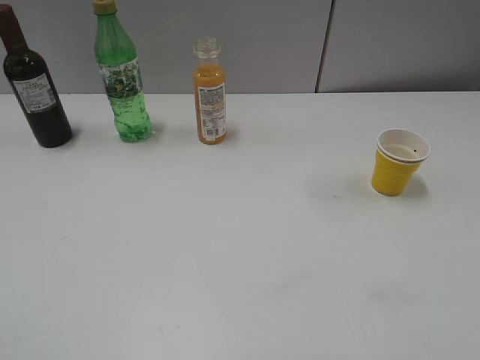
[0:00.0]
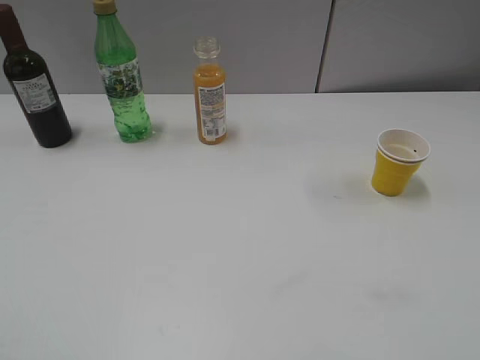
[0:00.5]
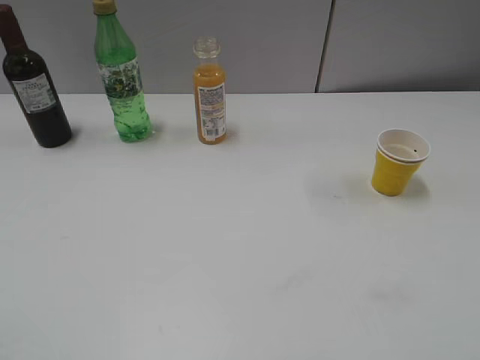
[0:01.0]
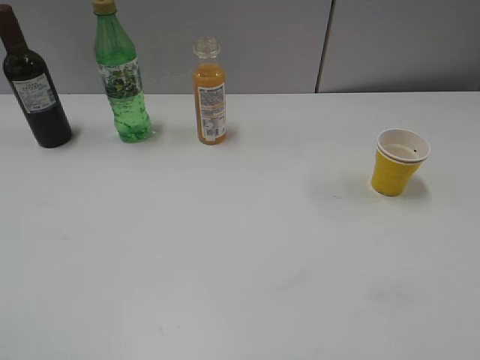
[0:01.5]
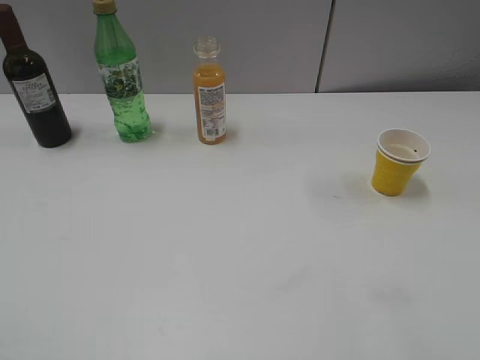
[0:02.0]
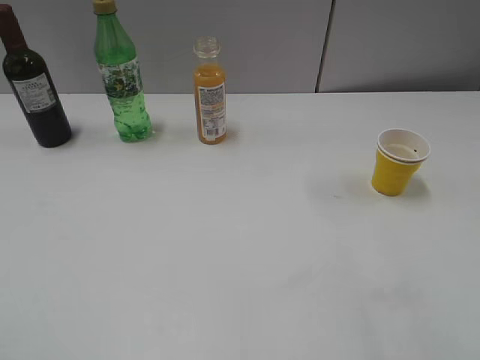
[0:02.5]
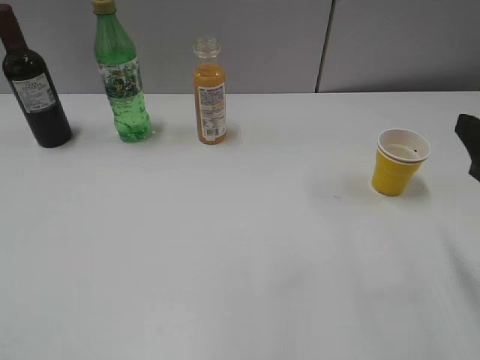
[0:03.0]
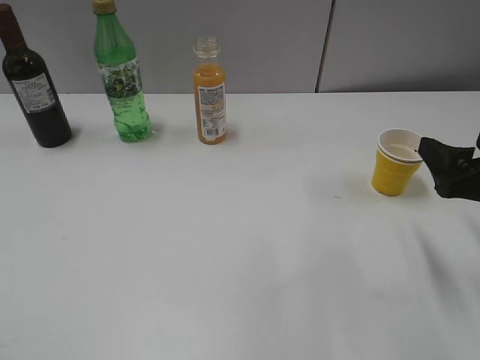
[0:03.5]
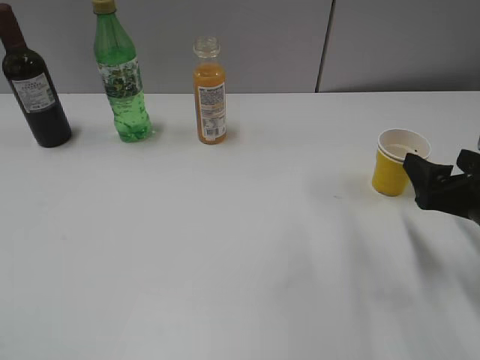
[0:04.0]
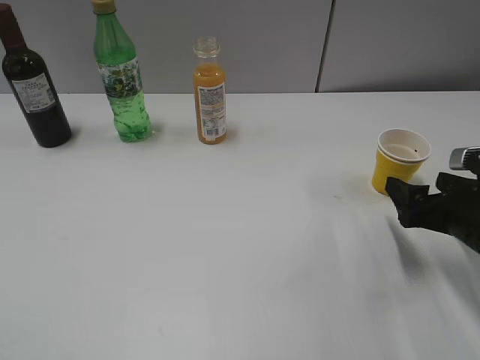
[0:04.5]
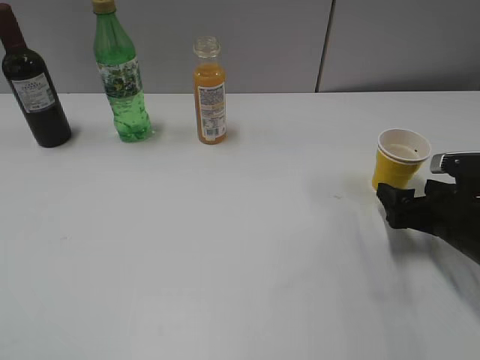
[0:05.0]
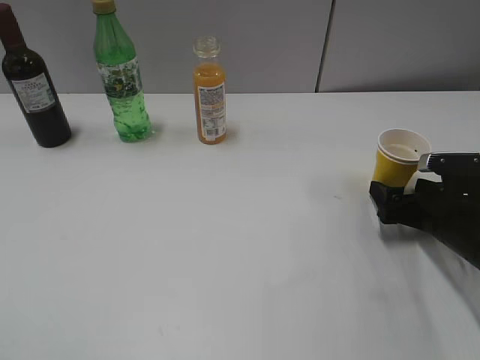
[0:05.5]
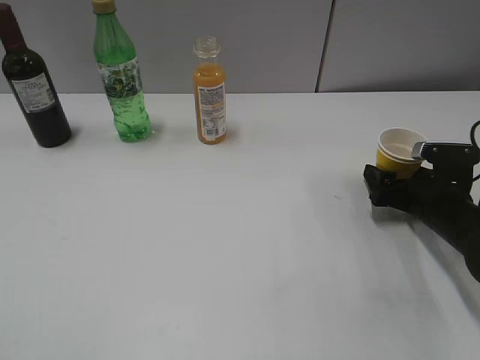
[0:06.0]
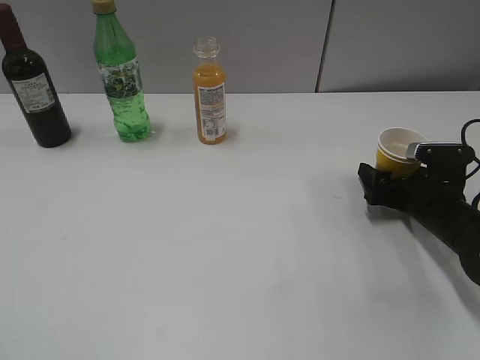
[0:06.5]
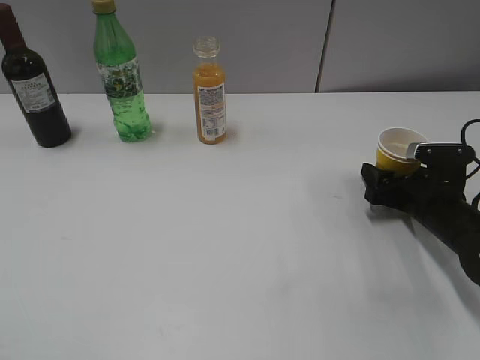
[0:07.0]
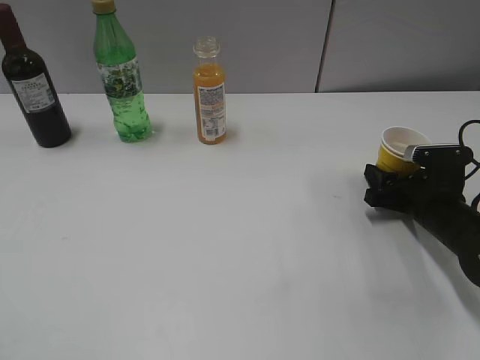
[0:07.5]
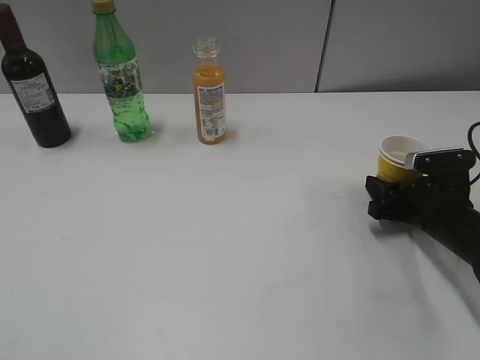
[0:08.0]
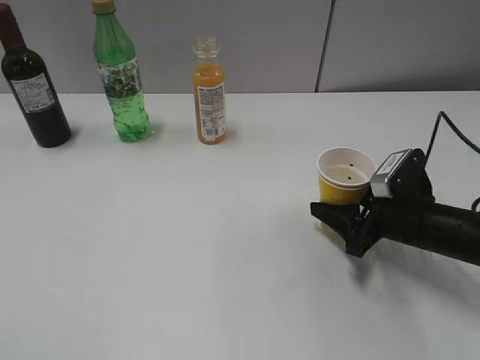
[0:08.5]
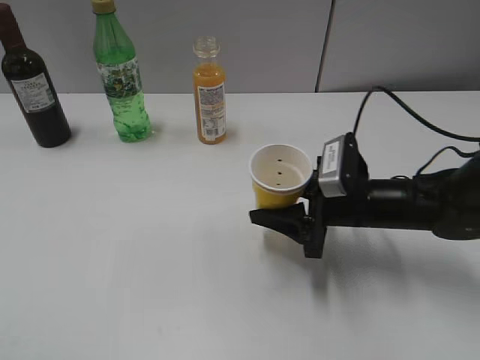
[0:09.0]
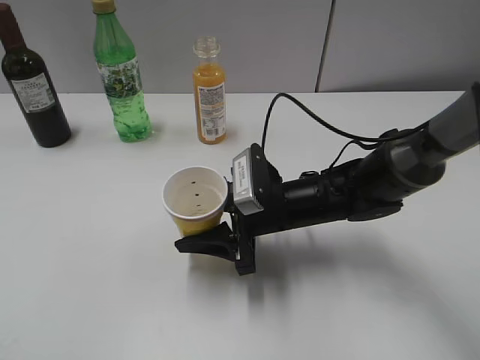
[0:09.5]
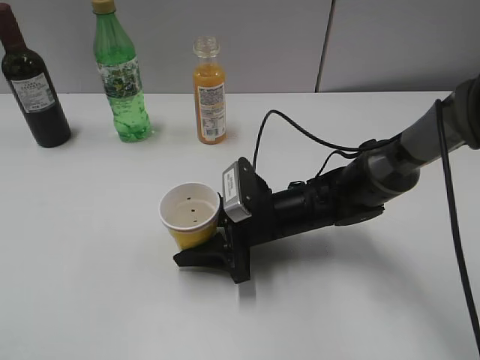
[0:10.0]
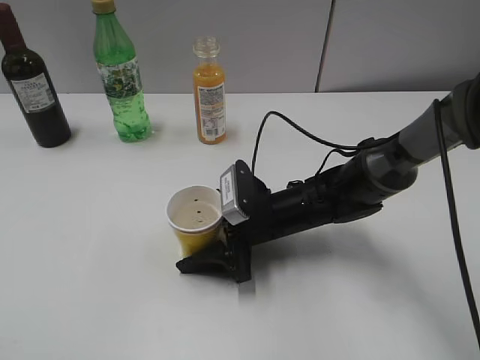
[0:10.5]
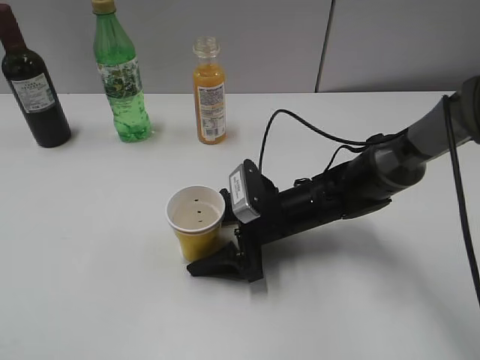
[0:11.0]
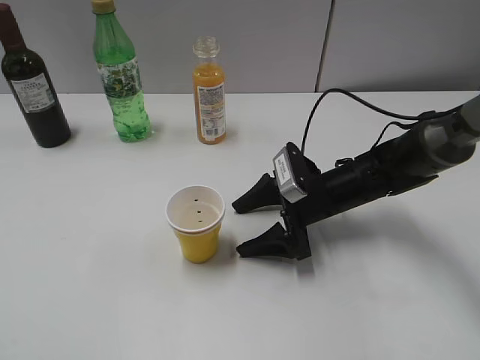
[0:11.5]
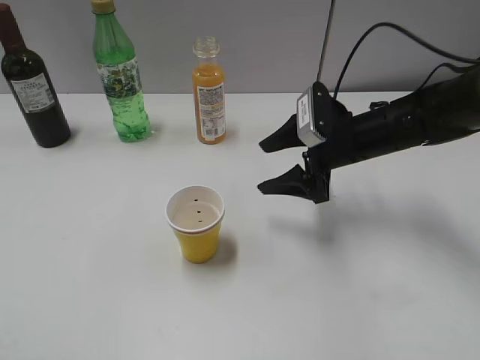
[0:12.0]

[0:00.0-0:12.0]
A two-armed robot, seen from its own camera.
Step, 0:03.0 to 0:07.5: Grasp the yellow paper cup with right gripper.
Step, 0:08.0 to 0:11.0: Place the yellow paper cup on the table with right gripper.
0:02.0 to 0:04.0: The right gripper heads downward and forward, covering about 25 cm.
0:04.0 to 0:06.0: The right gripper heads downward and forward, covering roughly 10 cm.
0:06.0 to 0:08.0: The right gripper closes.
0:08.0 to 0:10.0: The right gripper heads to the left, covering roughly 20 cm.
0:10.0 to 0:12.0: The right gripper is displaced to the right, upward and forward by roughly 15 cm, and opens its fingers.

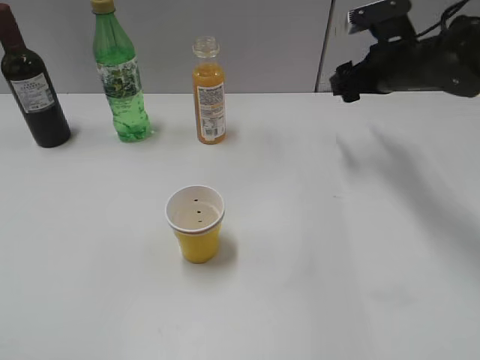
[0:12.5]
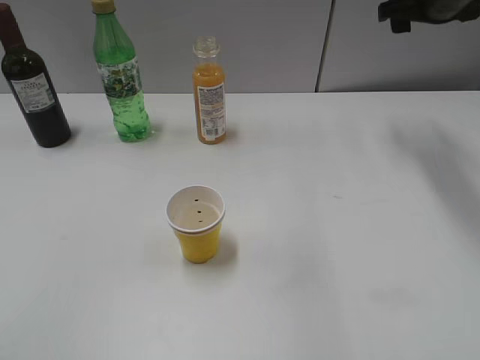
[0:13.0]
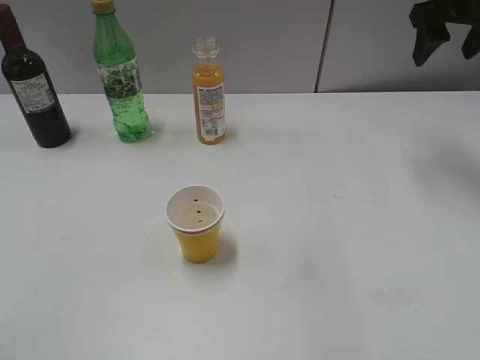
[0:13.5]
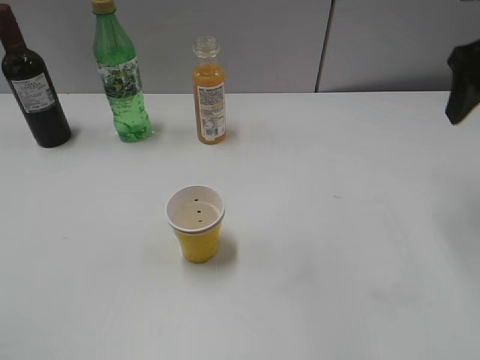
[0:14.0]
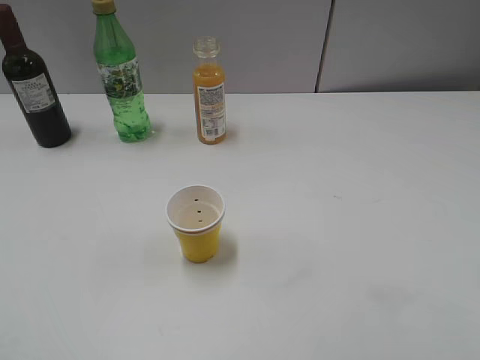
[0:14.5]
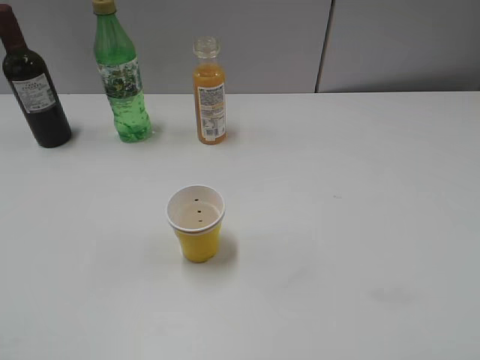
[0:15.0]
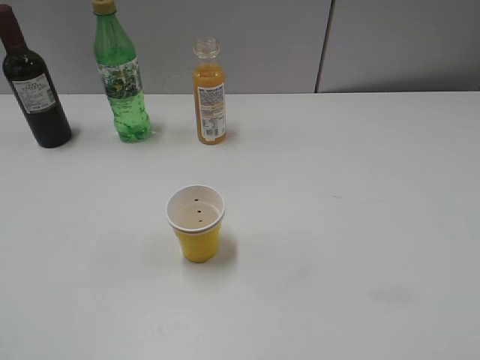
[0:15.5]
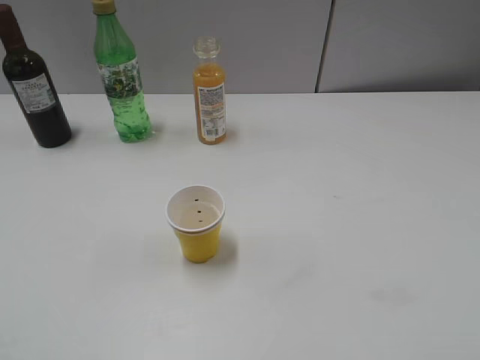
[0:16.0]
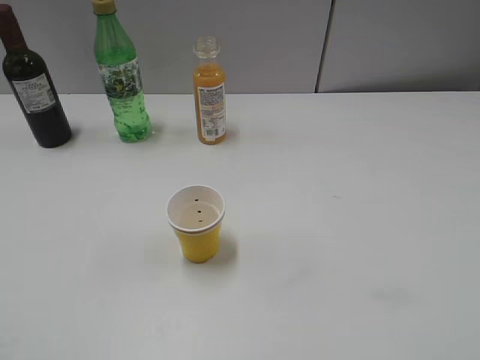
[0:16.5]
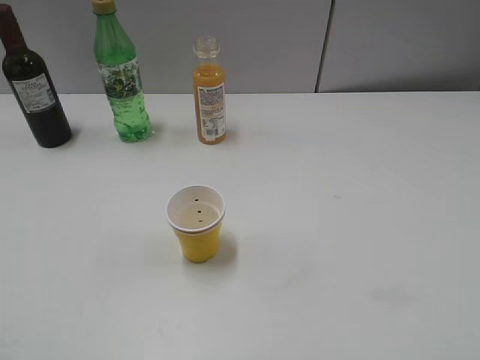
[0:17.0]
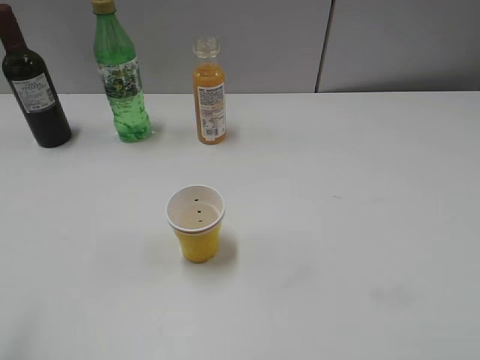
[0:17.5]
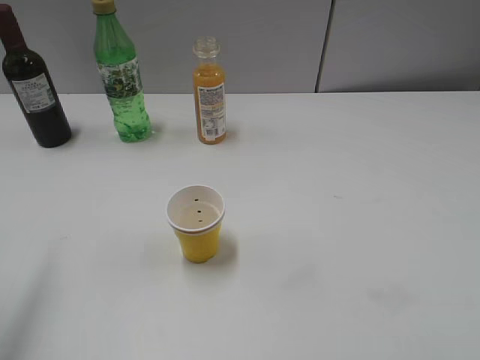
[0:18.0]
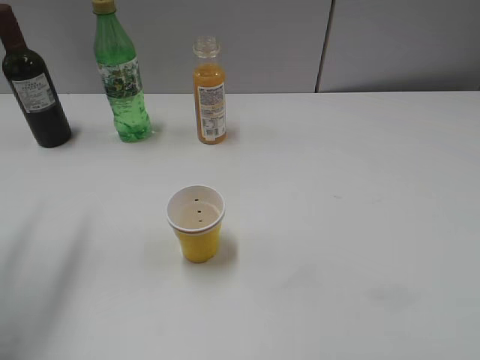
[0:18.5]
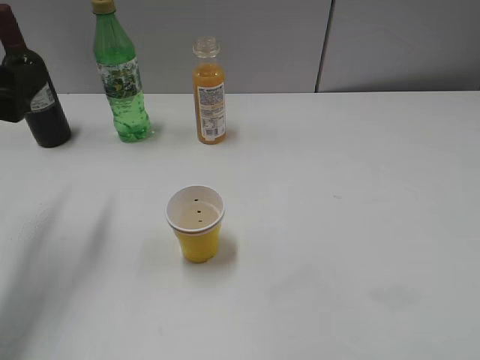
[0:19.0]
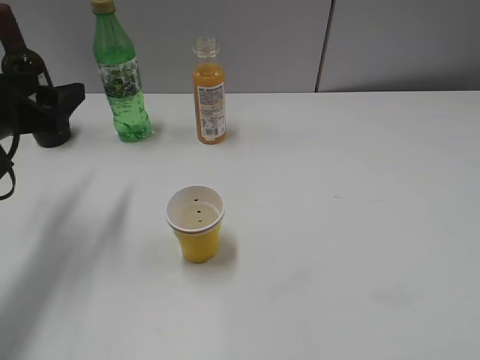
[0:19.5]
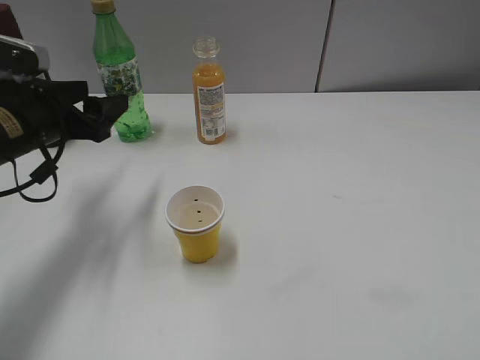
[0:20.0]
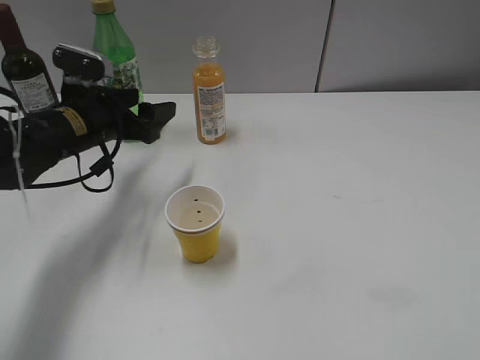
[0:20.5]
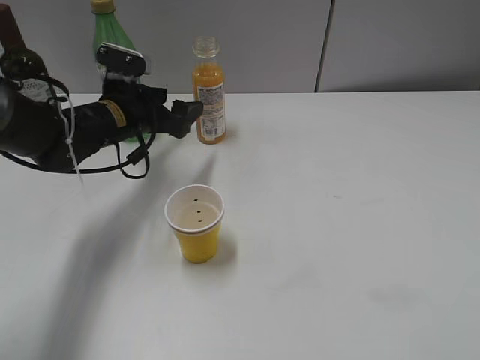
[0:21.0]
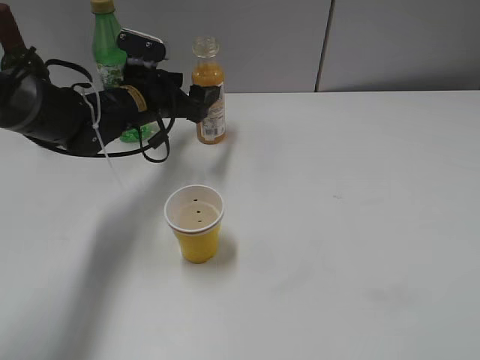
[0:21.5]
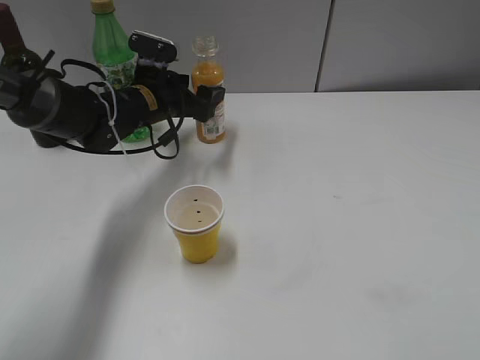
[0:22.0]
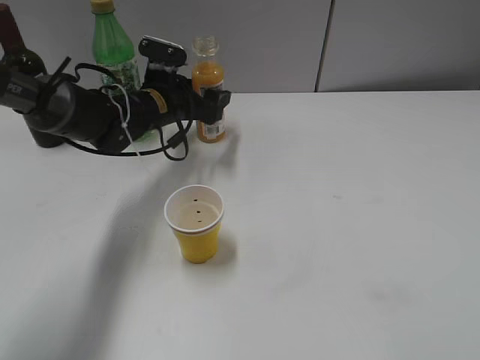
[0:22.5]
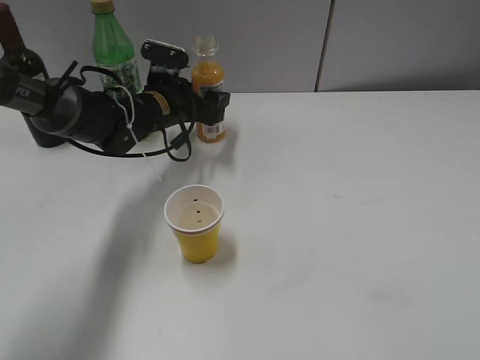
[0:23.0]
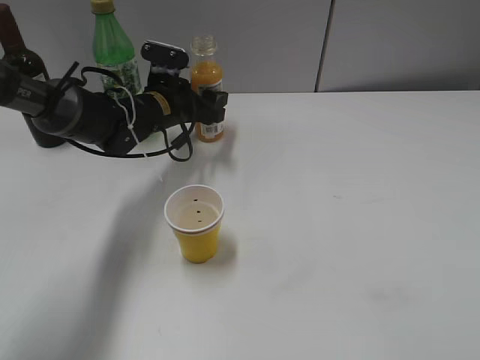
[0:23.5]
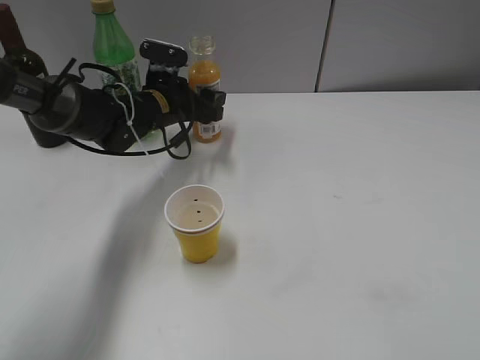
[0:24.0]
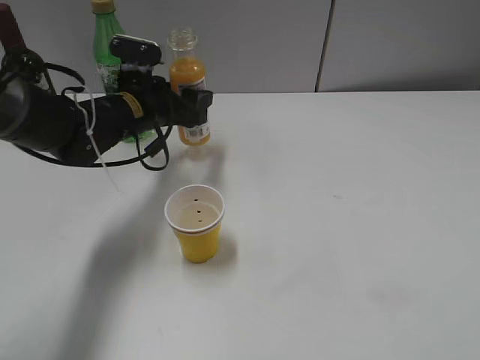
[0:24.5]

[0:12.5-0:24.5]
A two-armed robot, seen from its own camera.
Step, 0:12.5 to 0:23.5: Grasp the bottle with orange juice with left gripper.
0:12.5 to 0:14.5: The right gripper shifts roughly 25 cm backward.
0:16.5 to 0:18.5: The left gripper travels forward by about 25 cm.
0:18.5 to 0:20.5: The left gripper shifts approximately 25 cm forward, downward and to the right.
0:20.5 to 0:22.5: The left gripper is displaced to the right and forward by about 10 cm.
0:22.5 to 0:24.5: The left gripper goes about 5 cm backward, and closes up.

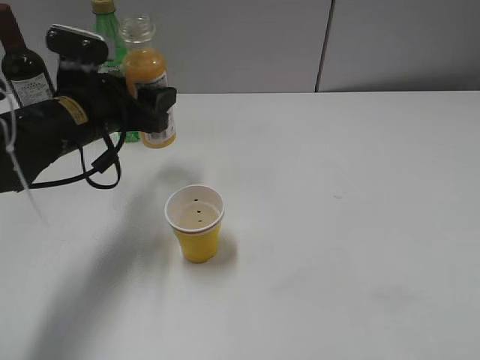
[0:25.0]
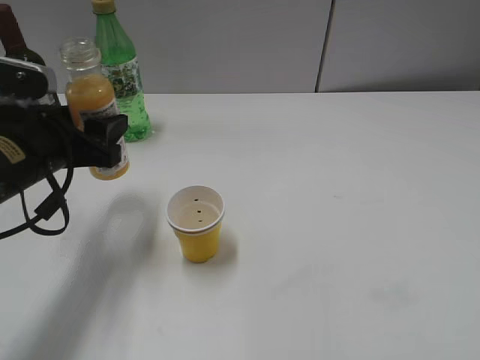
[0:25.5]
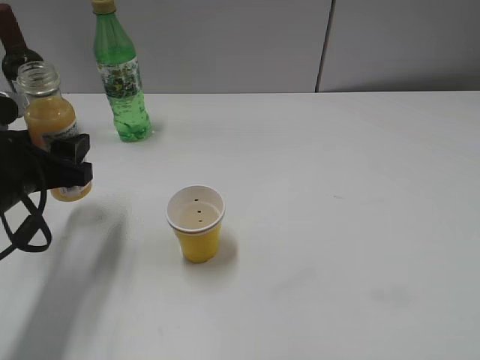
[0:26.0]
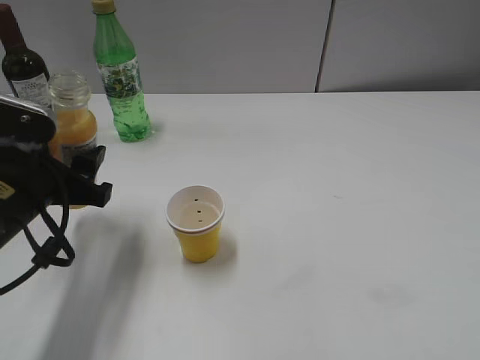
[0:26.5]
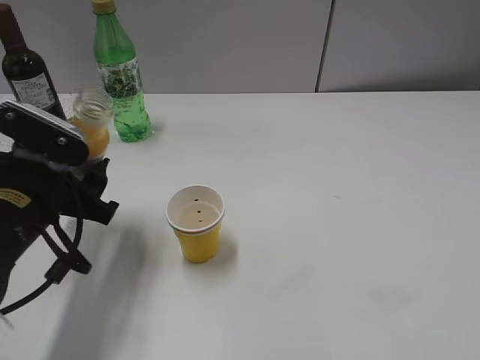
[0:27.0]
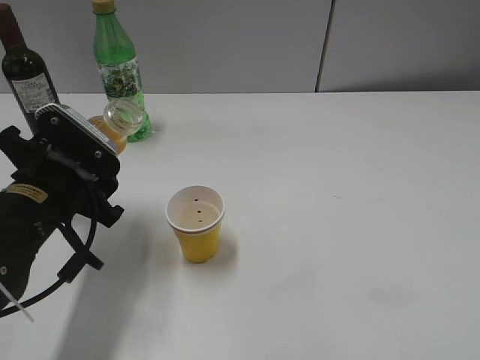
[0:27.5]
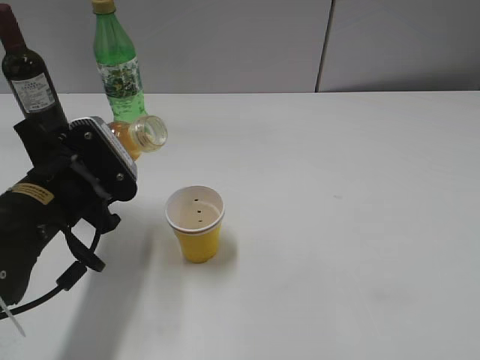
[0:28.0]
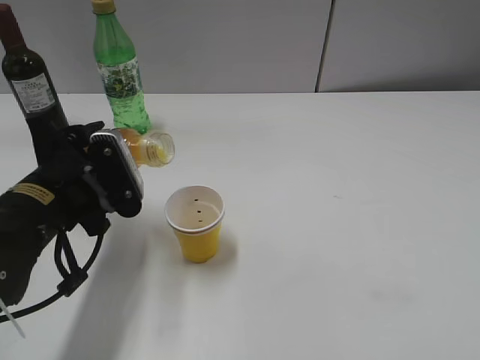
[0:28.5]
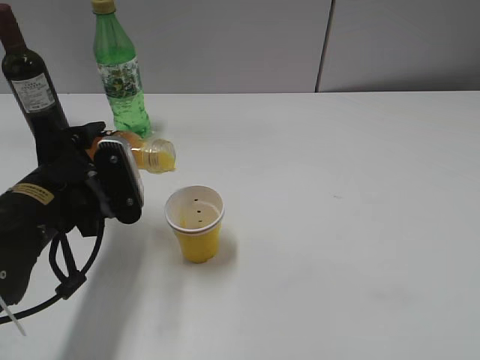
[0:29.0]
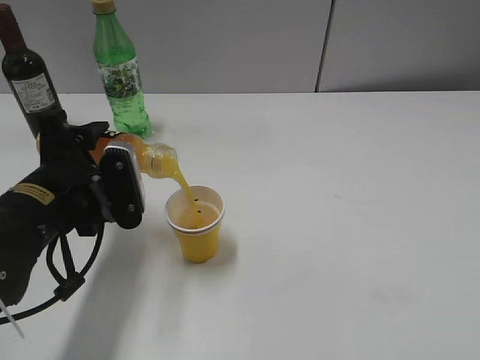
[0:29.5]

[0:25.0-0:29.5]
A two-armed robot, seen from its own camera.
0:25.0 to 0:27.0: The left gripper shifts some 10 cm backward.
